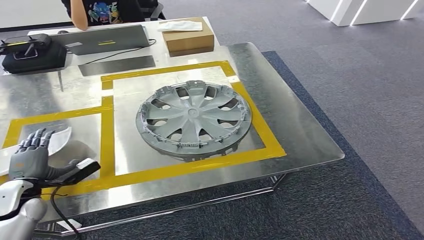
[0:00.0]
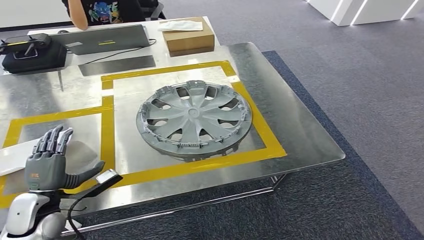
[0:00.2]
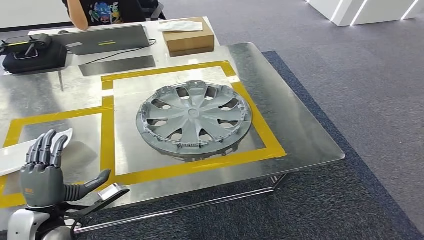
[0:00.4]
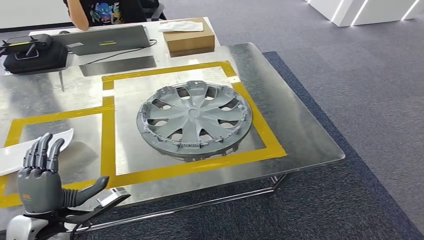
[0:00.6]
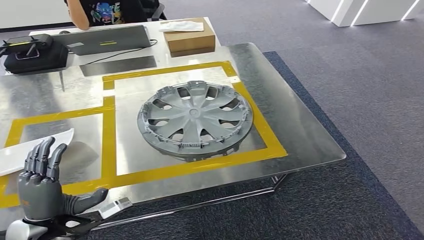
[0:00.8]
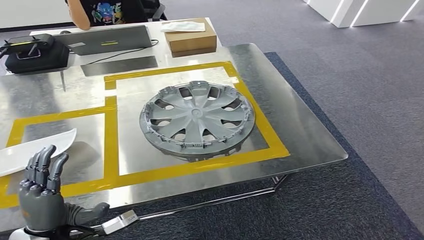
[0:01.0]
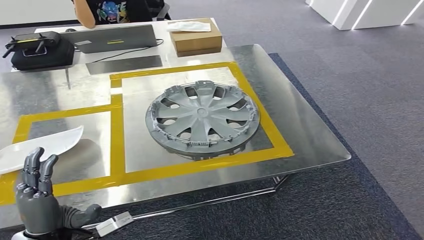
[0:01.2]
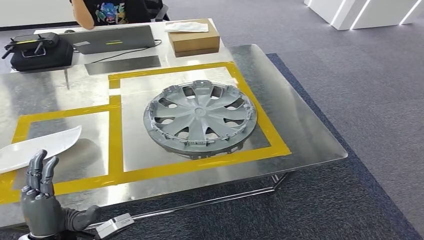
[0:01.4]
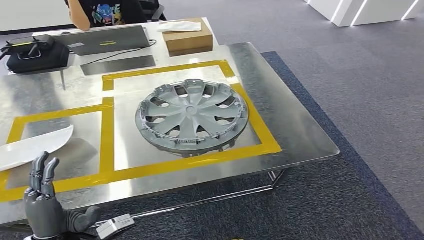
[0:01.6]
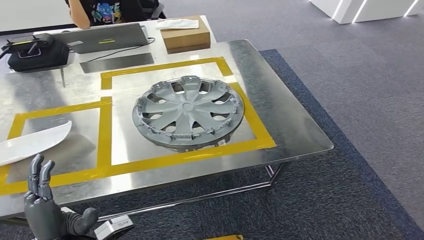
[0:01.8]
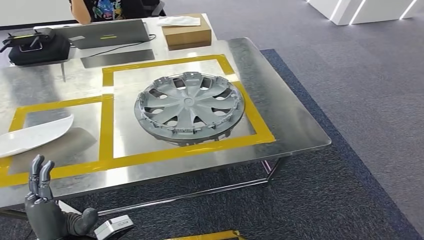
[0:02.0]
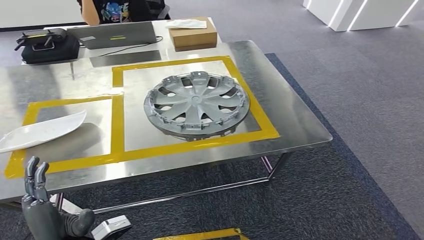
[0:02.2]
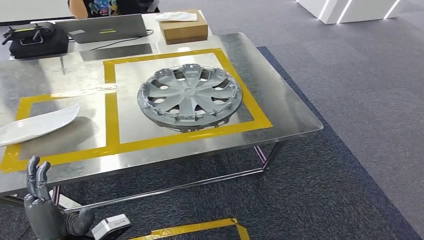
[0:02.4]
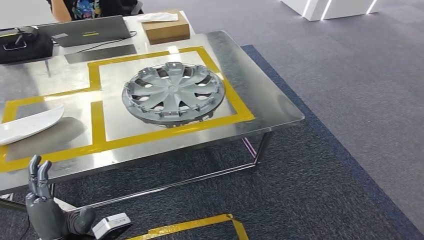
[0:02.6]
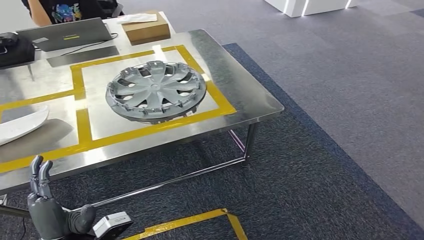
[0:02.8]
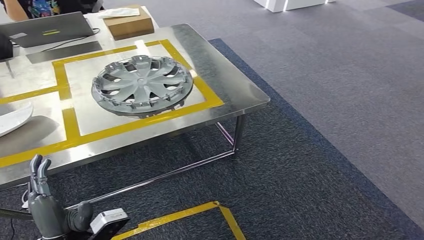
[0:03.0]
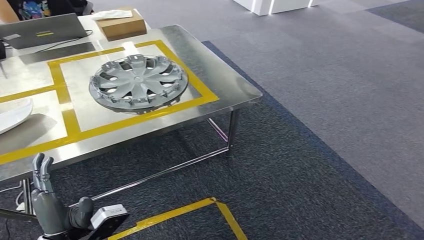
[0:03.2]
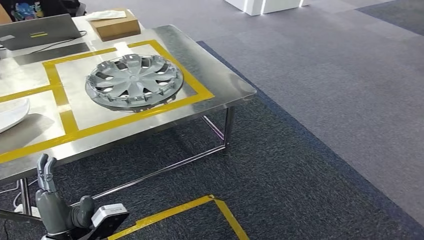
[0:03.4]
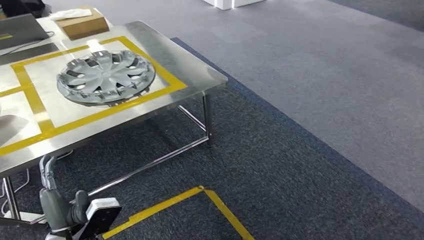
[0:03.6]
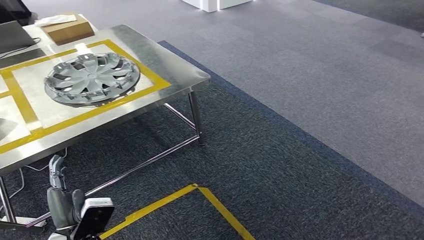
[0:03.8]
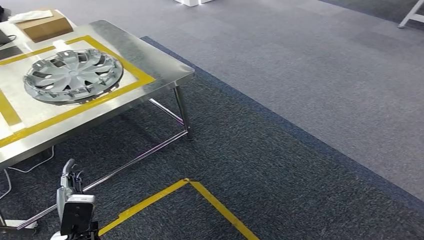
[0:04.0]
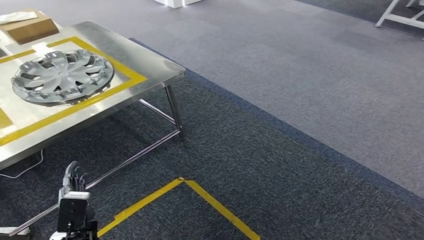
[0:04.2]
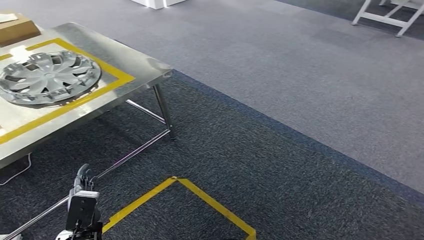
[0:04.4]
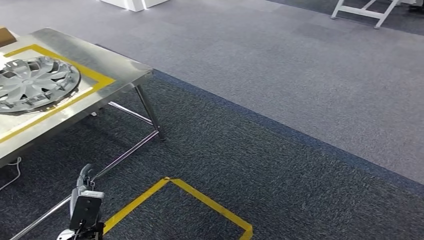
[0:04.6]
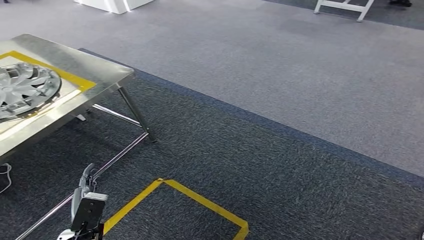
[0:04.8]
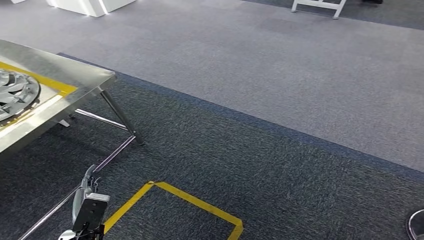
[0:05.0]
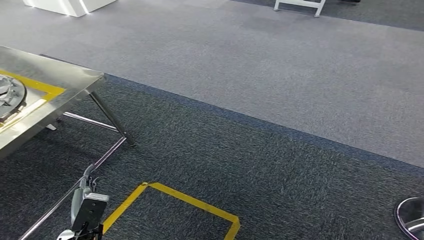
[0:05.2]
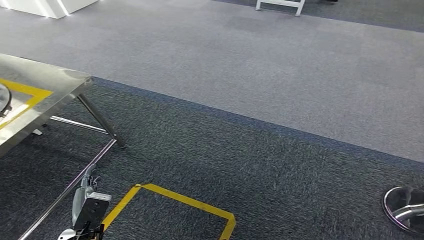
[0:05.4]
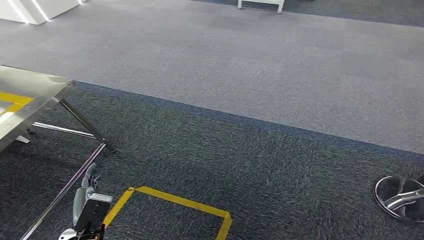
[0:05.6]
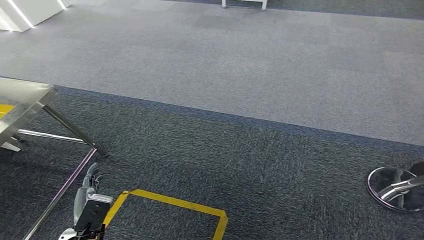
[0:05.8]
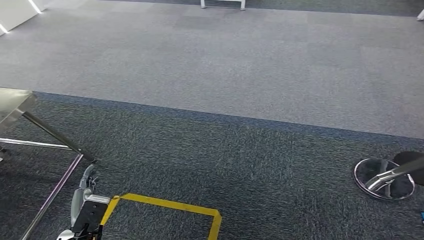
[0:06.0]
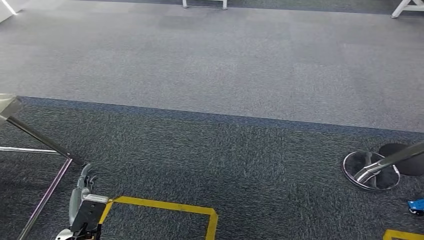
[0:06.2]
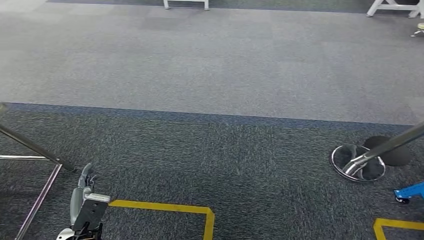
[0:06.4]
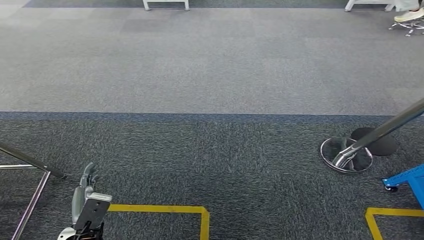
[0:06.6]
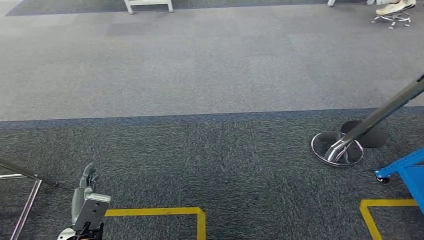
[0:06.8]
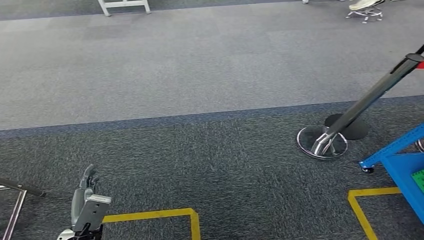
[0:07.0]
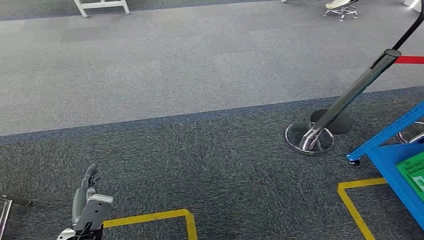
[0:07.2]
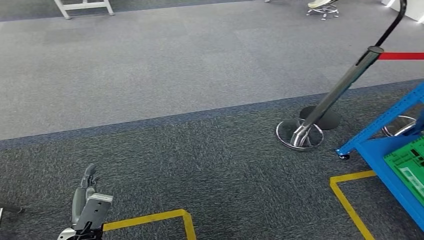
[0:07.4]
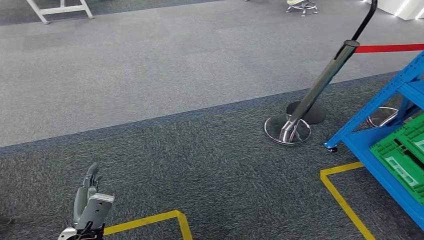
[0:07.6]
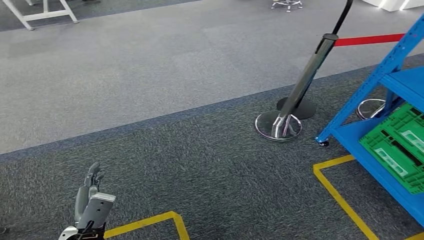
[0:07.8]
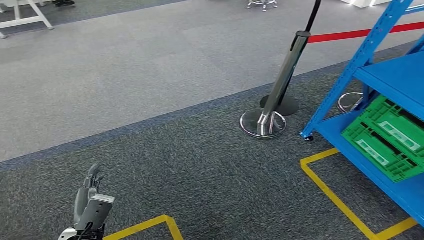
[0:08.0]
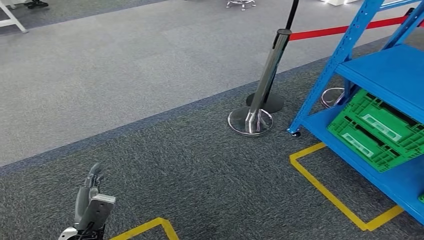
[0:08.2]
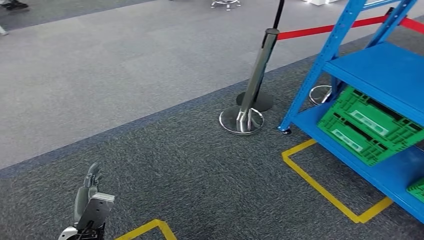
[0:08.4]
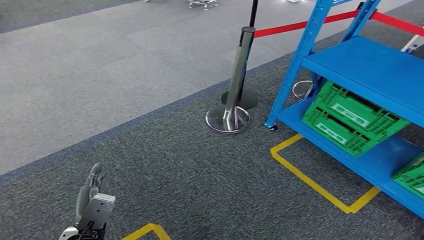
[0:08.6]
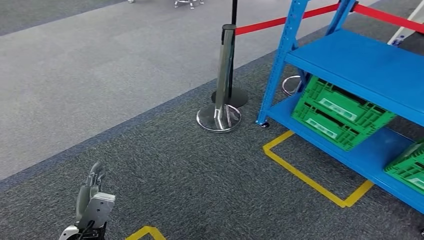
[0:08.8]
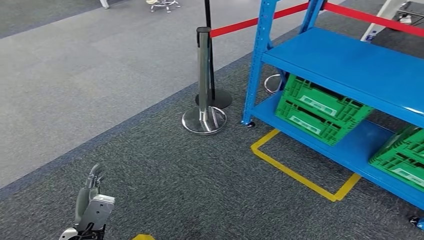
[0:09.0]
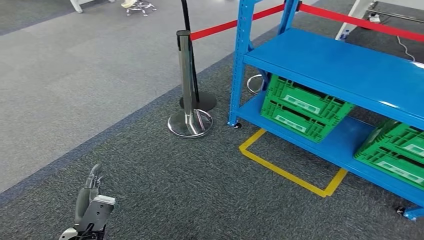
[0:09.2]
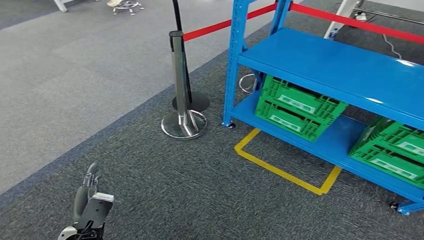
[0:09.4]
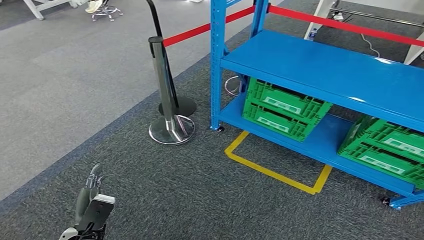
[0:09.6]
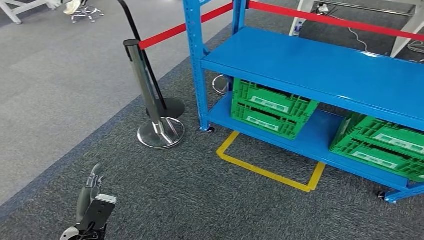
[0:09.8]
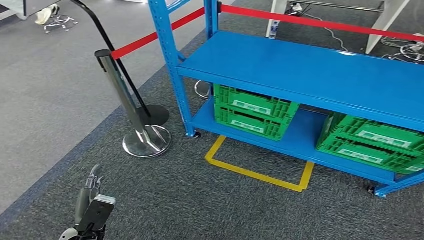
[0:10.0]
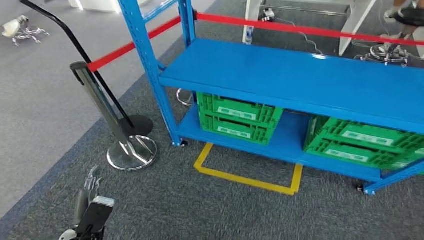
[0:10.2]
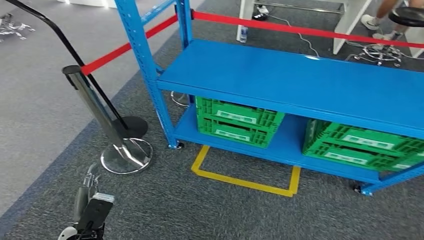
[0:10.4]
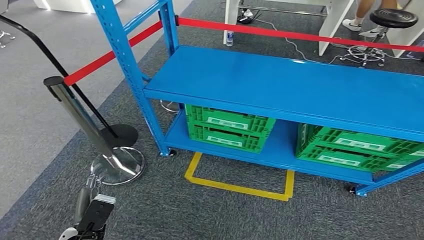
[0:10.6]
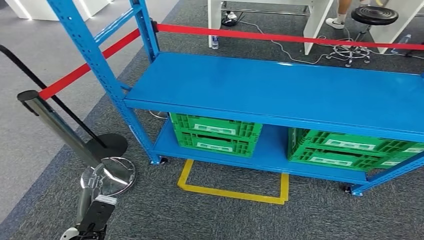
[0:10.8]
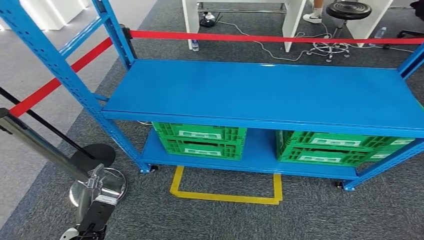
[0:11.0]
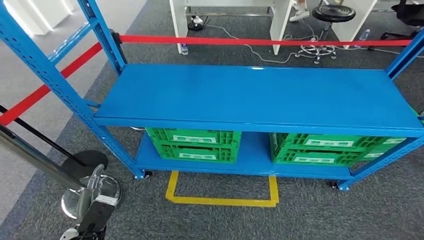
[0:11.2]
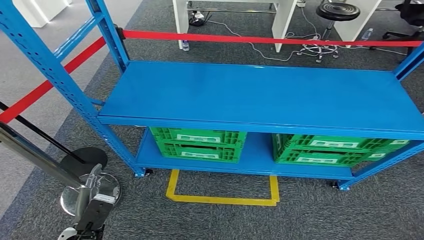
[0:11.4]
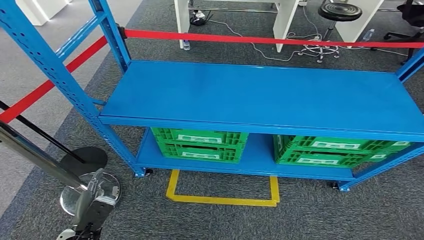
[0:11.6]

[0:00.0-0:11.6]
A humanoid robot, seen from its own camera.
Step, 0:01.8 to 0:11.6: Move to the initial position of the workbench.
